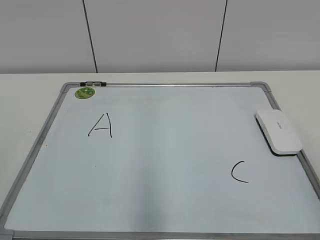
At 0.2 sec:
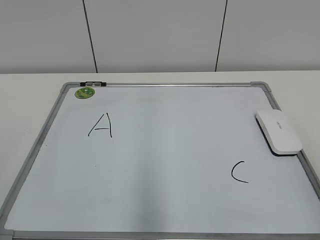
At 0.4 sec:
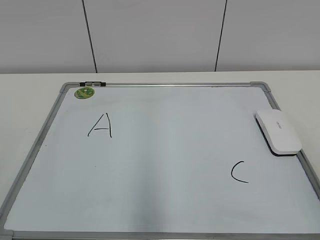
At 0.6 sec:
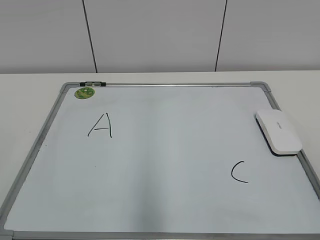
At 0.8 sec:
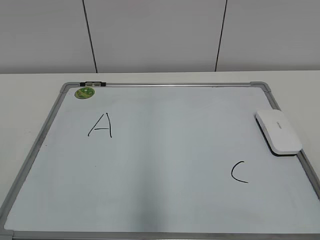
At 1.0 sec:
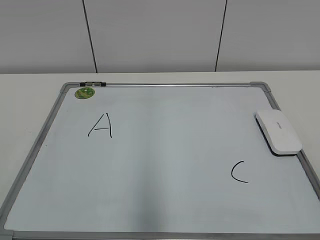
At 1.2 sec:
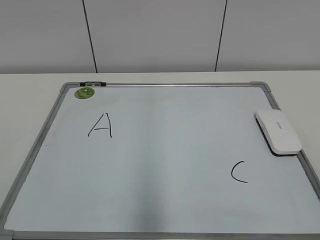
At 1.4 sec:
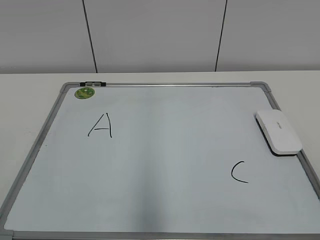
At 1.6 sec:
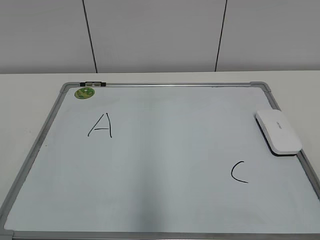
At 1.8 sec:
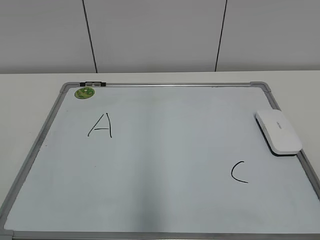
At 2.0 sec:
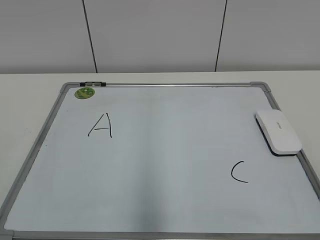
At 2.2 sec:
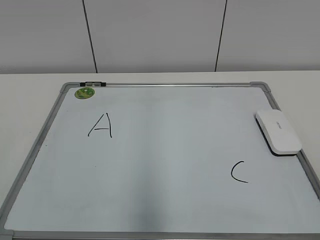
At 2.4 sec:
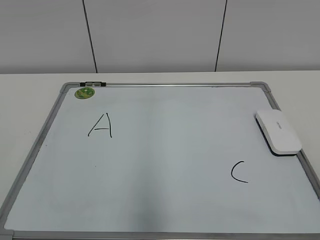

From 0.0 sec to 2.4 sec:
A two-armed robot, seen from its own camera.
Task of the whole recording: pick up the eraser on the blackboard and erase the letter "B".
From 1.2 sec to 2.4 sec: Both grippers stay put.
